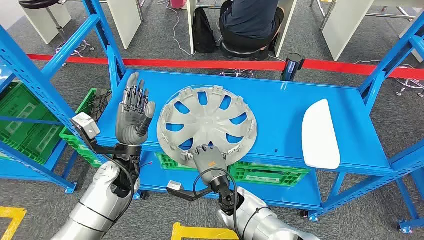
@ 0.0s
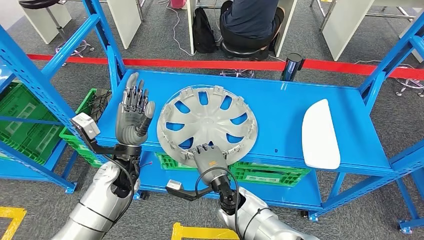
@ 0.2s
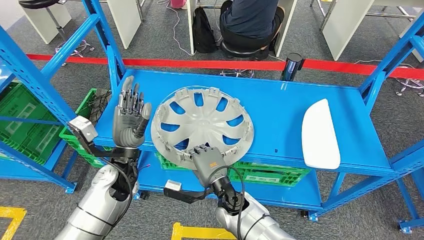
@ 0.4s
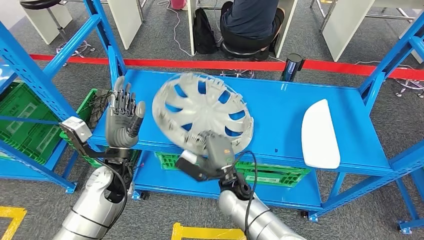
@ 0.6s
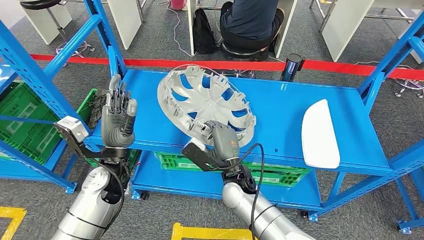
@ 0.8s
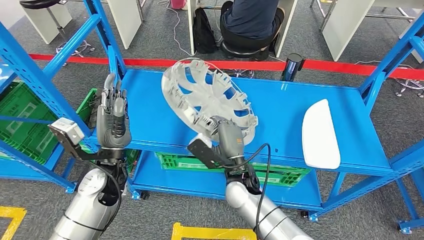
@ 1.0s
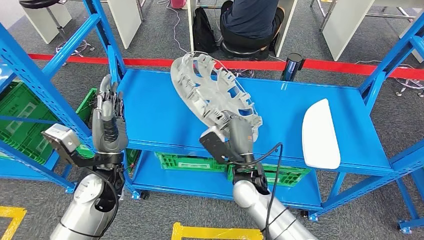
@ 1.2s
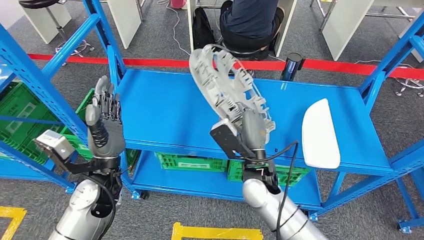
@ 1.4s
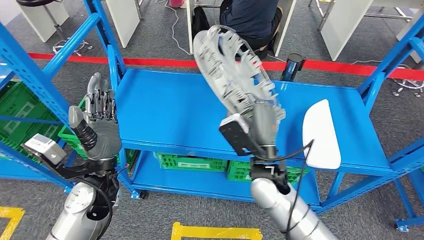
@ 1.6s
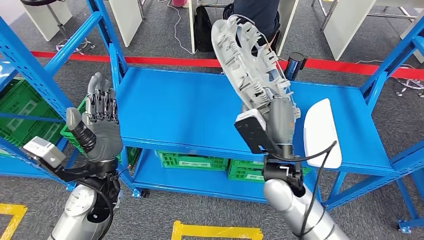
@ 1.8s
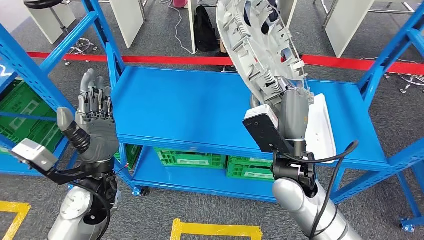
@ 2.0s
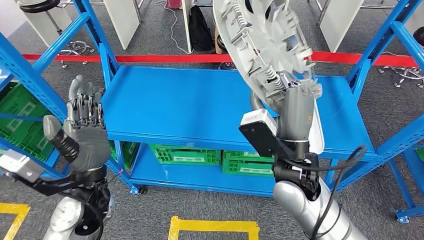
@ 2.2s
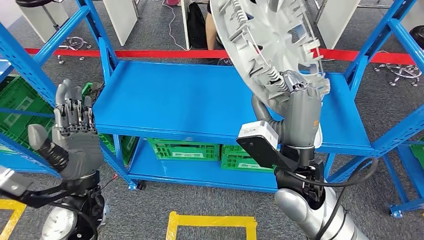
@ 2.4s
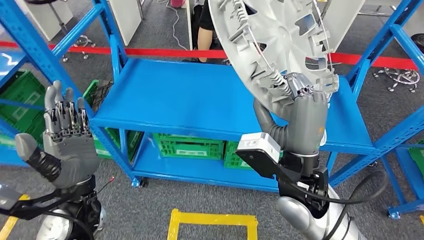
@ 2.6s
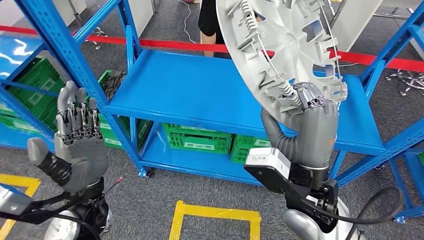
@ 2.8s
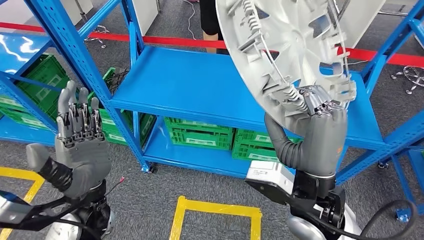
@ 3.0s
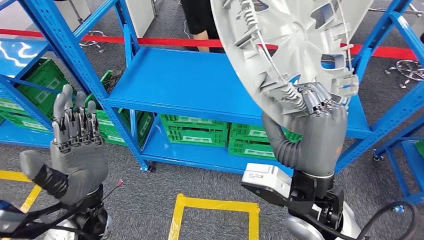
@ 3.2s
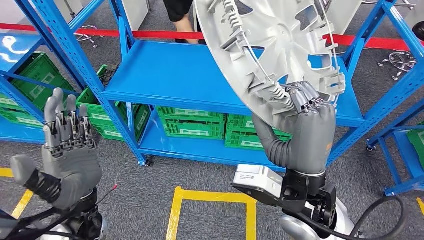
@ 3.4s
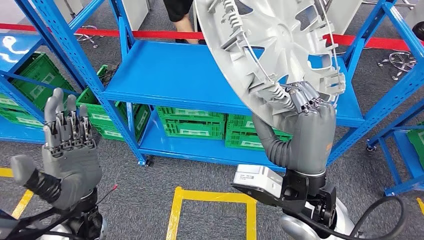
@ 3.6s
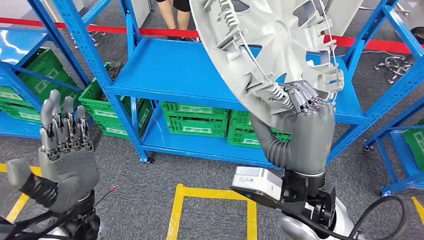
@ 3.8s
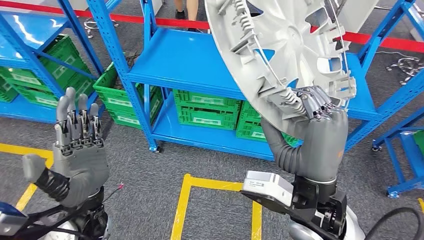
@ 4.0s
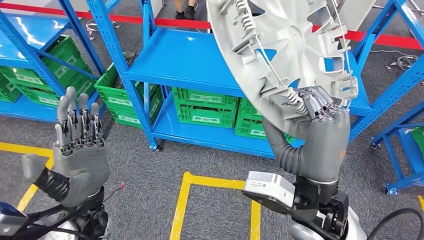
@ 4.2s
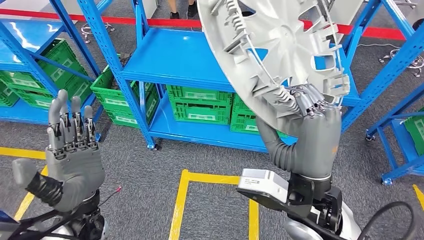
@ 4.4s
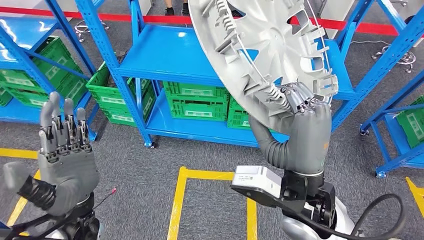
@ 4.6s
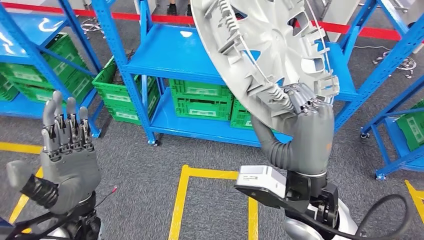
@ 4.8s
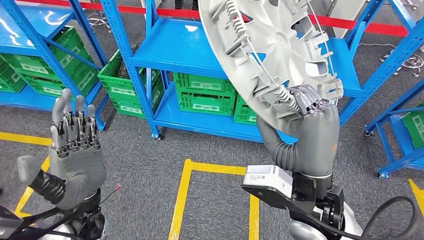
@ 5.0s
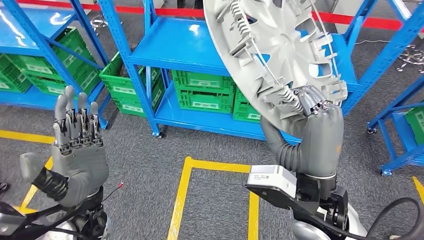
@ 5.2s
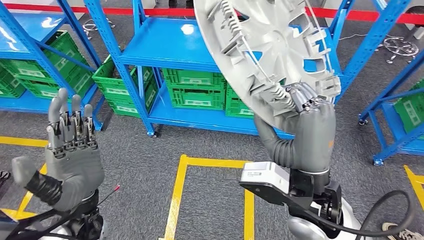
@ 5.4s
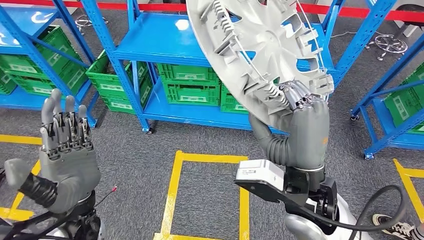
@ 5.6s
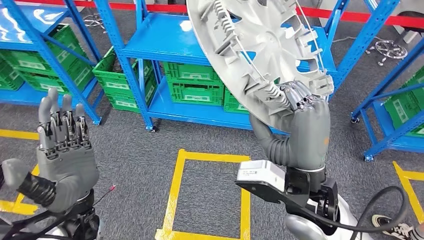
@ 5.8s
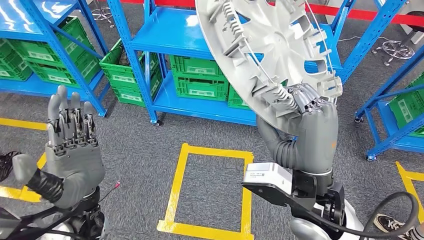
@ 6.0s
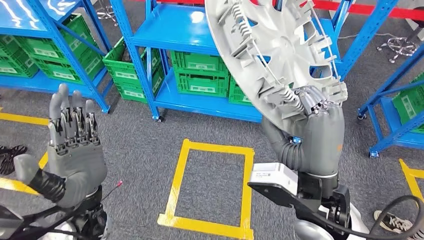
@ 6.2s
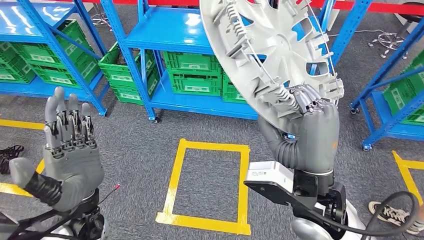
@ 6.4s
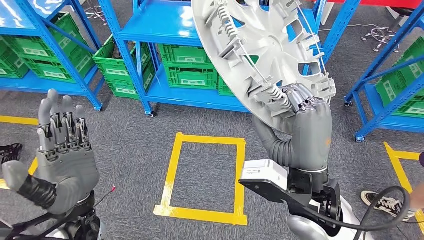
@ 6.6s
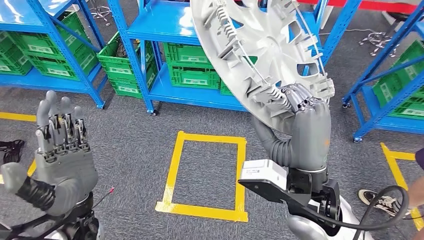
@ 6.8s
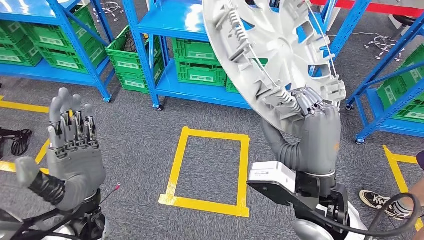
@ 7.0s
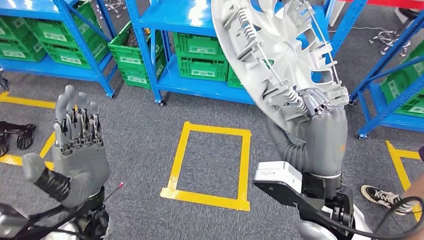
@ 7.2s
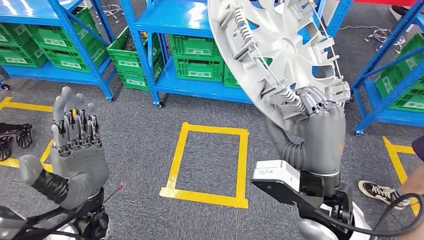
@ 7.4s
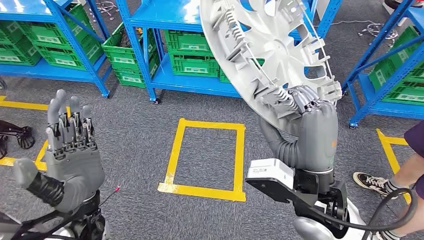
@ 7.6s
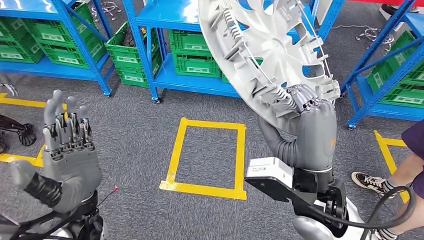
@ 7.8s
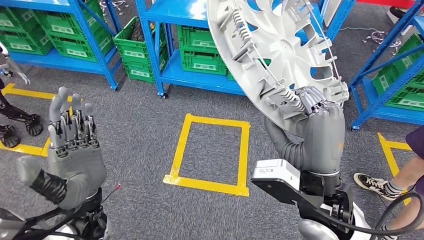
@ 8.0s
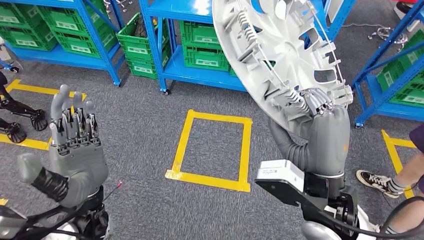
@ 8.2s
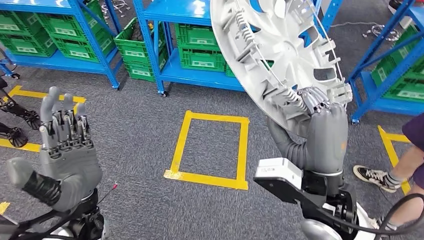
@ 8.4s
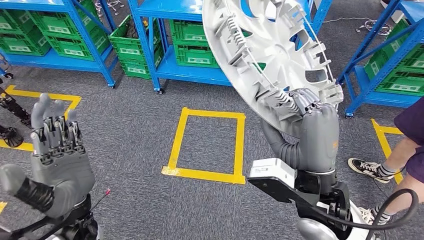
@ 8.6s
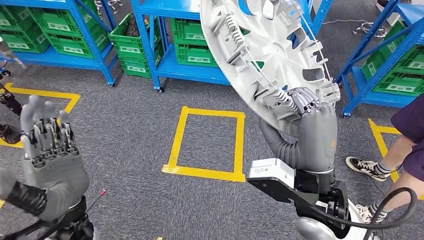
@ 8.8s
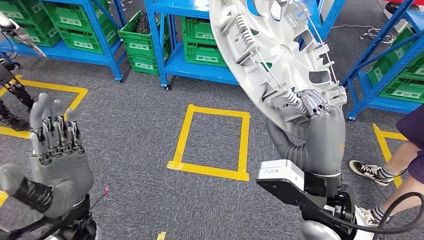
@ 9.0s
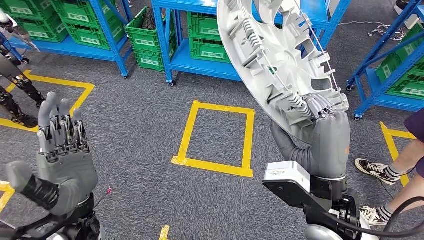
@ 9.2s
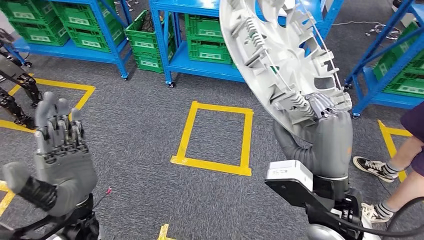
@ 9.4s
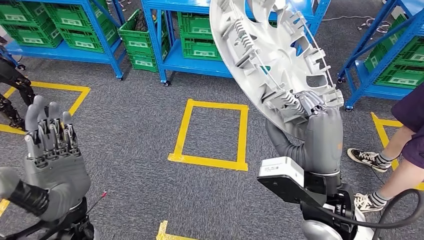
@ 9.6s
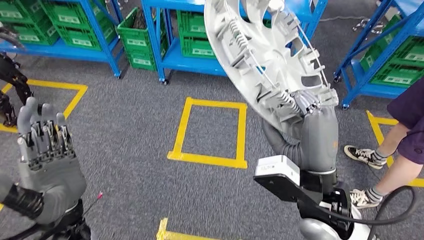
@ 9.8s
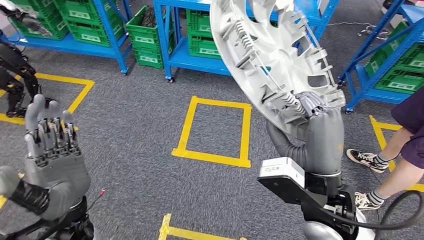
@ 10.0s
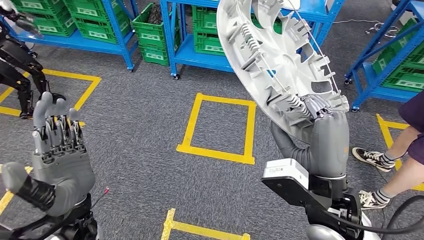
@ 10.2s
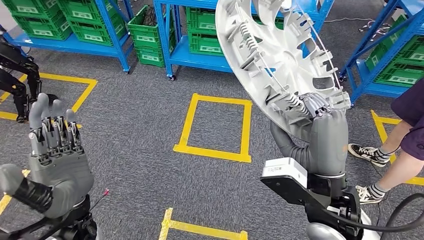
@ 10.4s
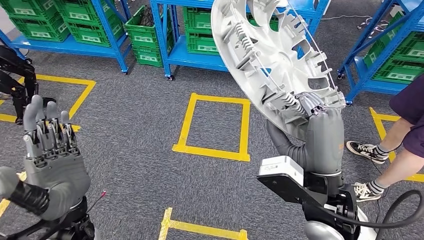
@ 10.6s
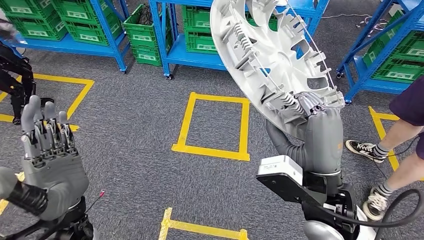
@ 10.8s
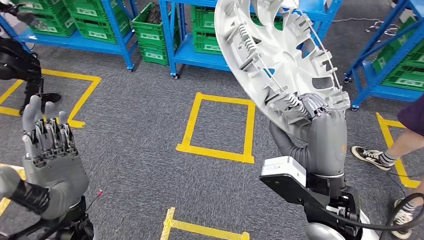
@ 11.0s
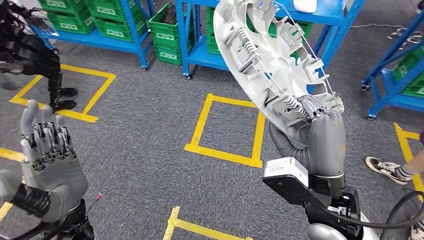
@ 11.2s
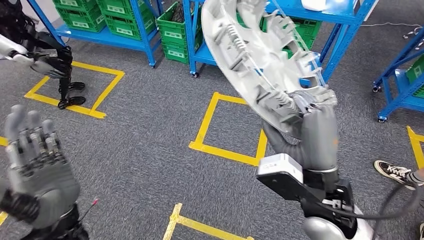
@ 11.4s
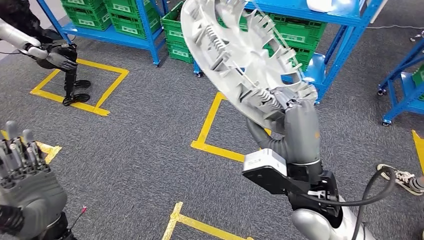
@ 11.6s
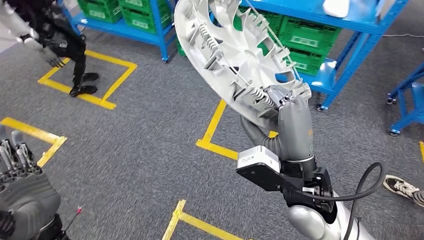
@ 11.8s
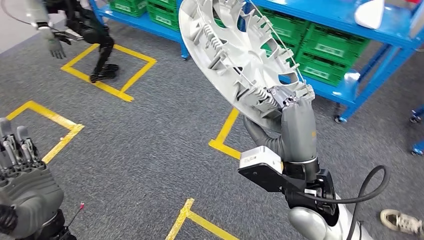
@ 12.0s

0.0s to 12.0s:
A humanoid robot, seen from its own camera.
Step, 0.0s to 5.8s: Pick up the small component from the shelf.

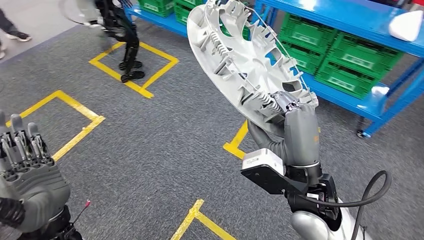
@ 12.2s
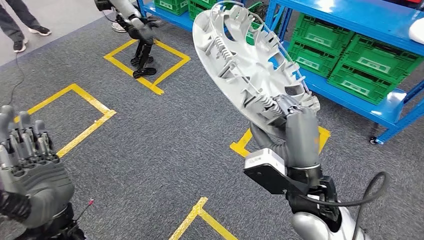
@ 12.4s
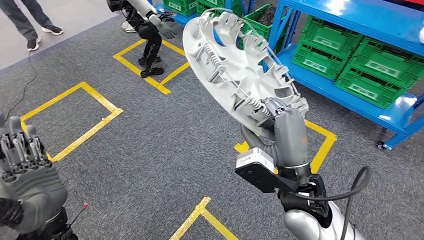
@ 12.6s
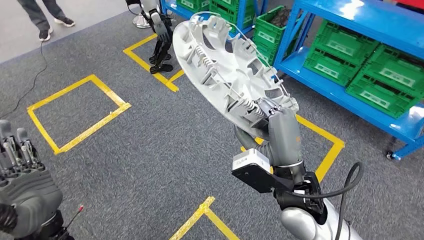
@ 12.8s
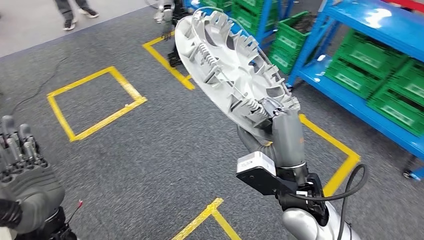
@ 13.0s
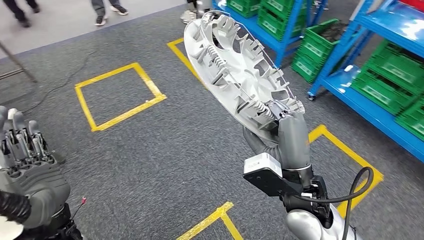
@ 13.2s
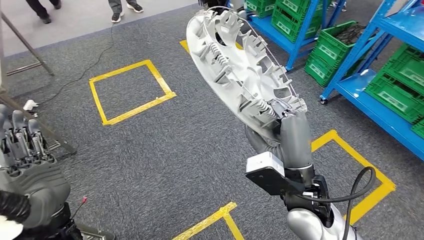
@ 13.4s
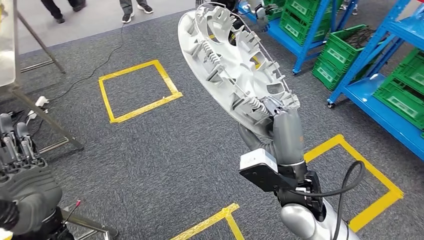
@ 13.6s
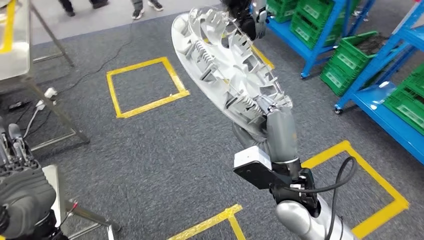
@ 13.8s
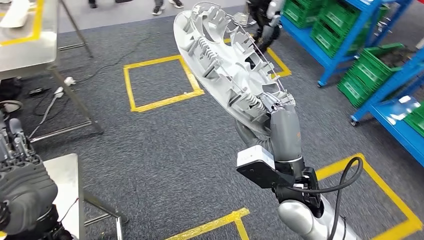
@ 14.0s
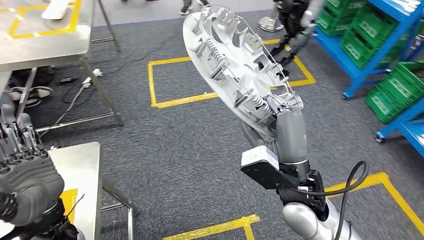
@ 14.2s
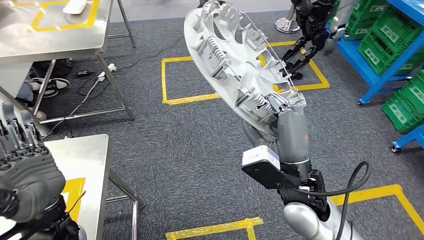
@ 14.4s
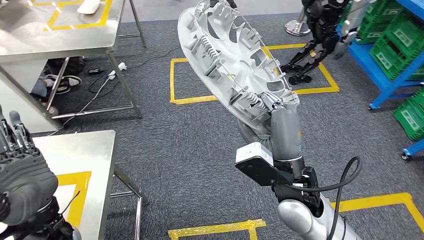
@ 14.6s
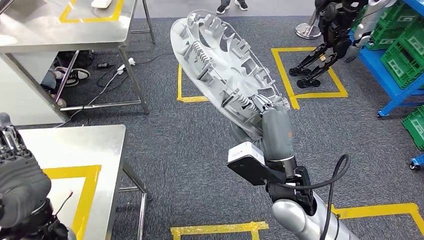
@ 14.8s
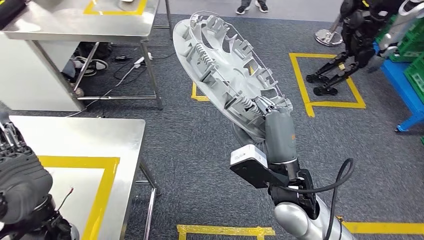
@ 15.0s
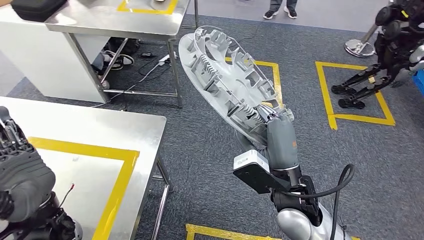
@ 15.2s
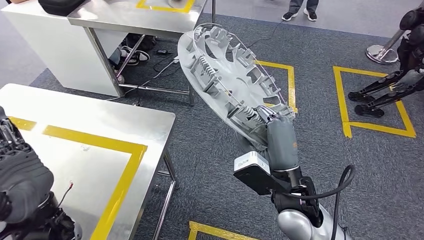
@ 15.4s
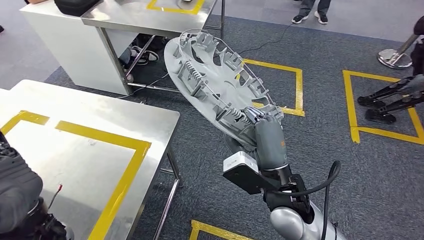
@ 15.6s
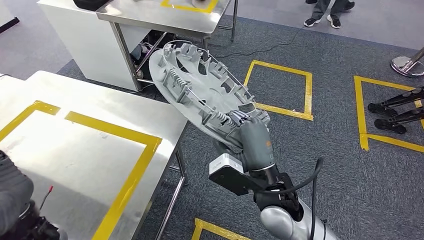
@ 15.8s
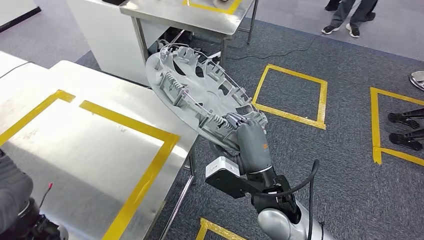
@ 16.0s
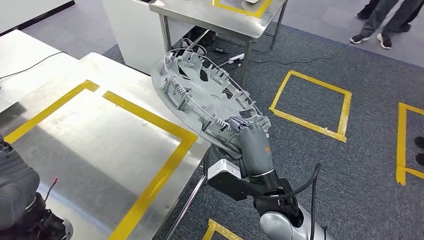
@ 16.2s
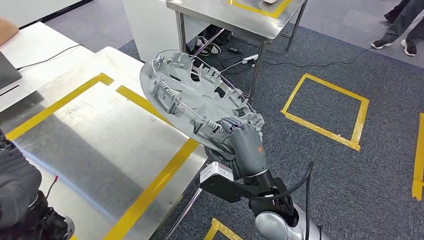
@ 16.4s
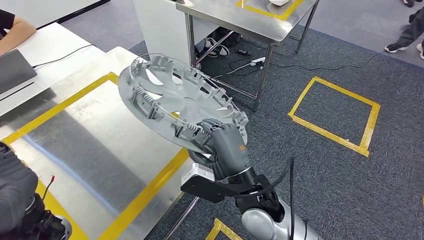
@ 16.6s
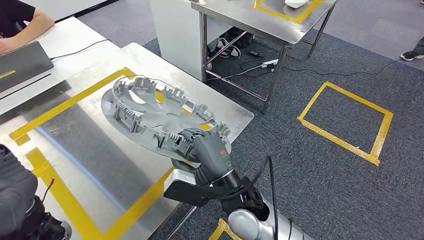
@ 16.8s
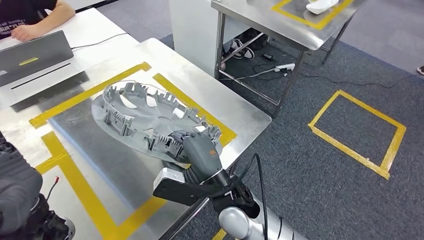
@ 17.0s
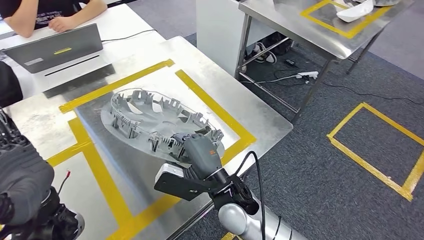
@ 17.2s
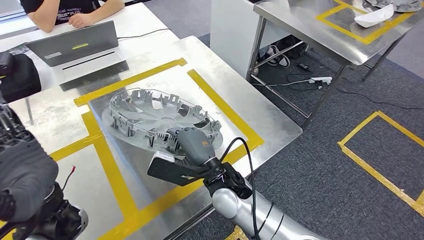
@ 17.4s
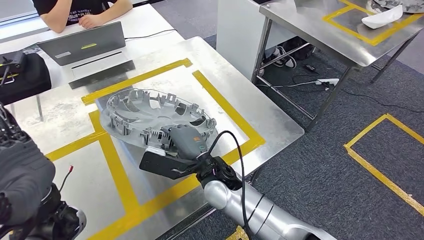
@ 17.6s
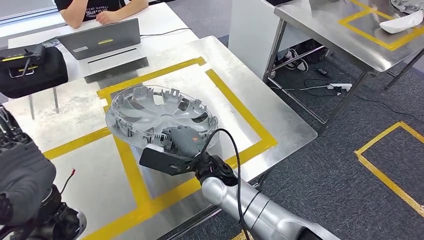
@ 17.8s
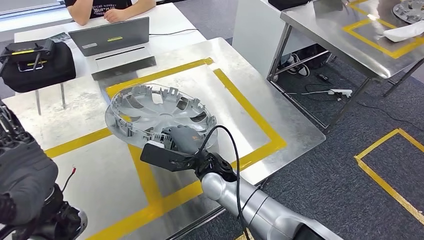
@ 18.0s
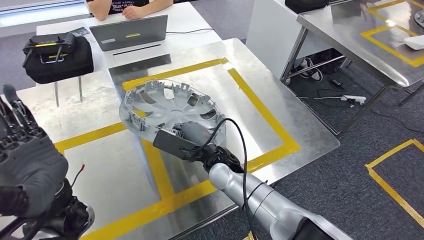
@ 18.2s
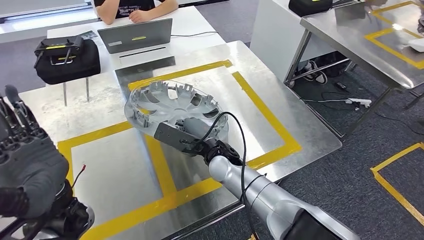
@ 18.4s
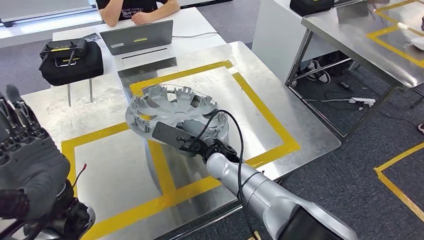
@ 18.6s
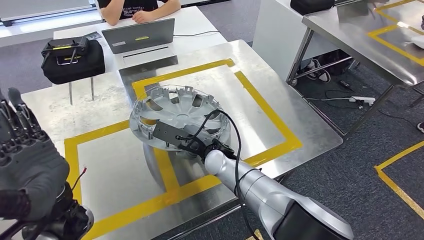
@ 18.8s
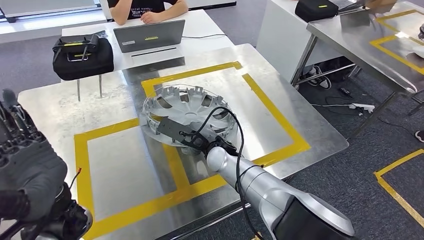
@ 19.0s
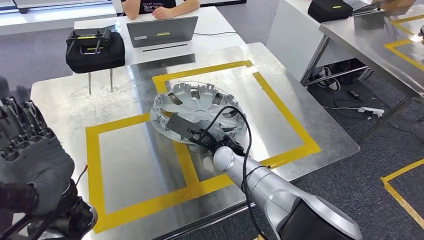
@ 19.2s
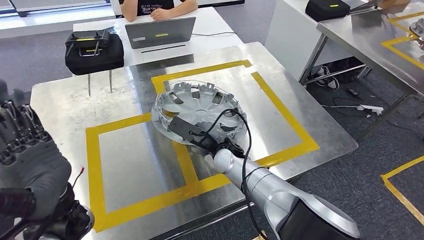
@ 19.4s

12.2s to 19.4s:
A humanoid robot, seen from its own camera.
Step, 12.2s to 18.6s: Move the small component to the workbench.
